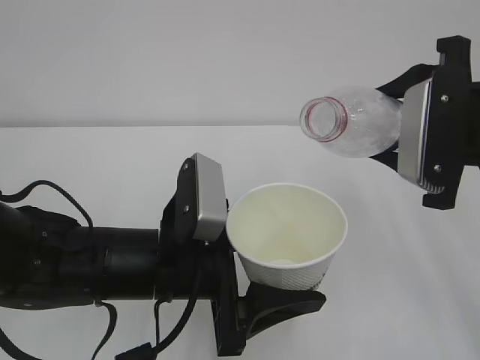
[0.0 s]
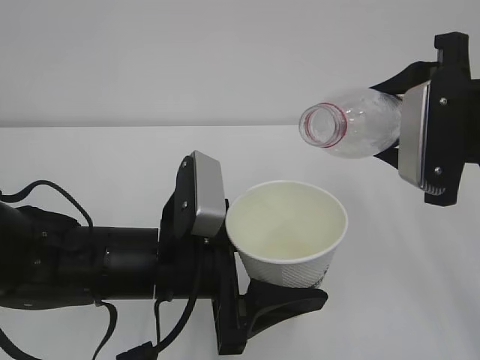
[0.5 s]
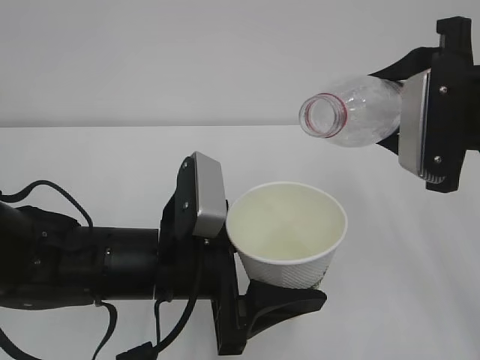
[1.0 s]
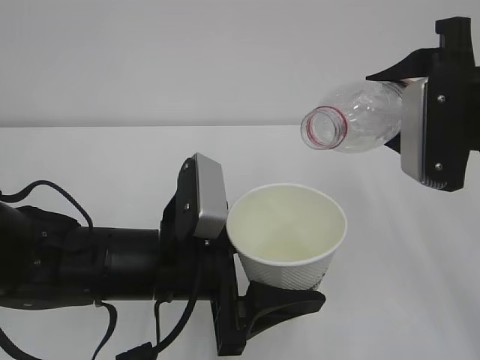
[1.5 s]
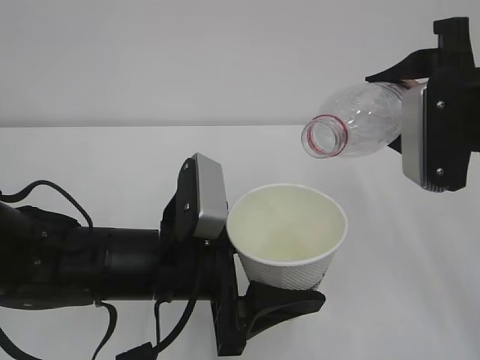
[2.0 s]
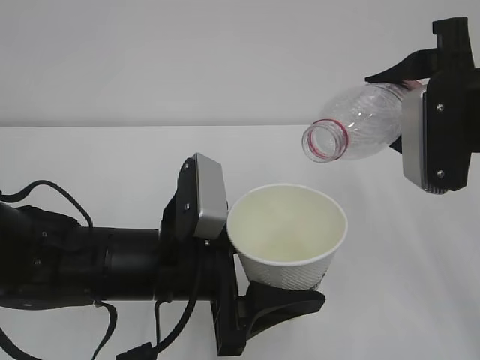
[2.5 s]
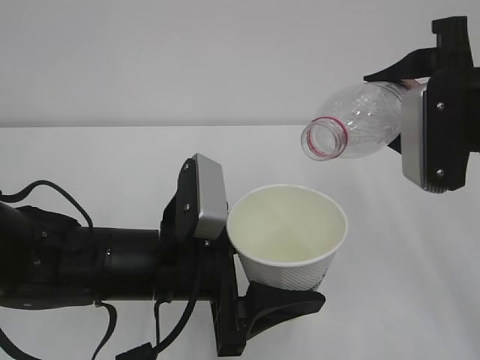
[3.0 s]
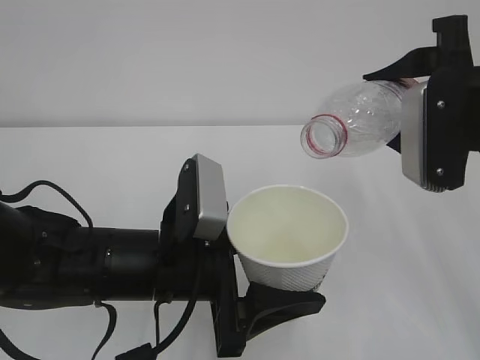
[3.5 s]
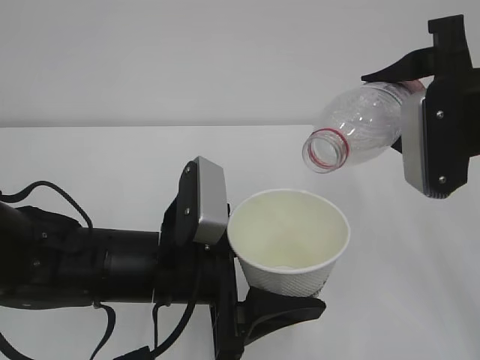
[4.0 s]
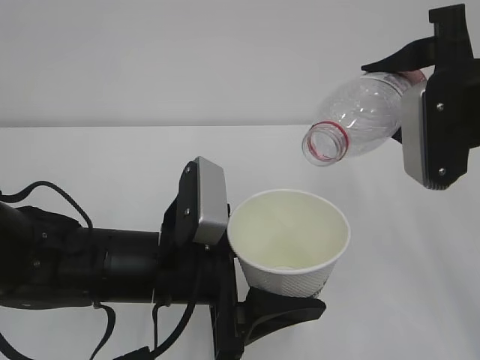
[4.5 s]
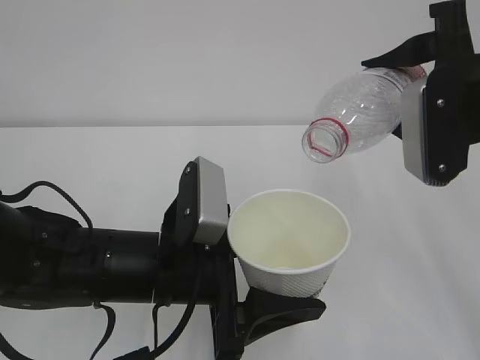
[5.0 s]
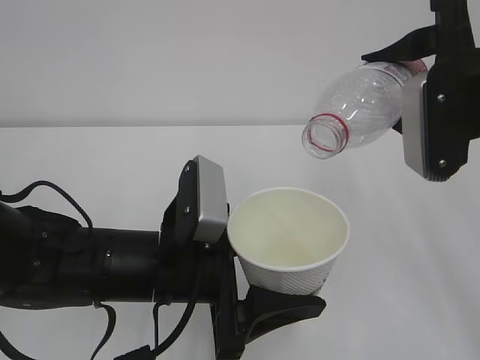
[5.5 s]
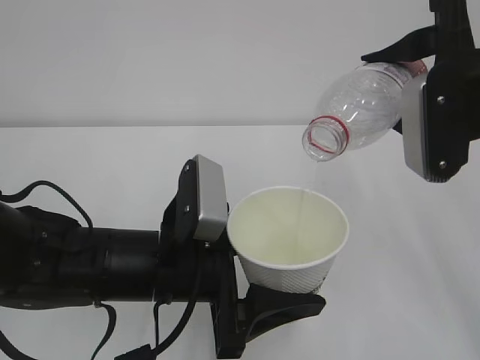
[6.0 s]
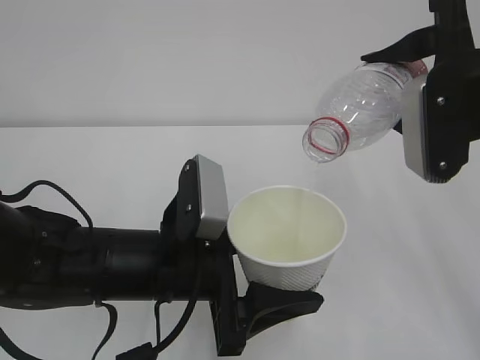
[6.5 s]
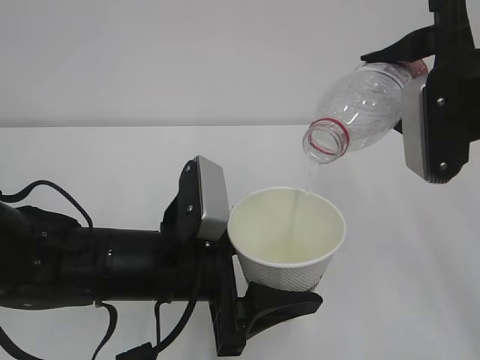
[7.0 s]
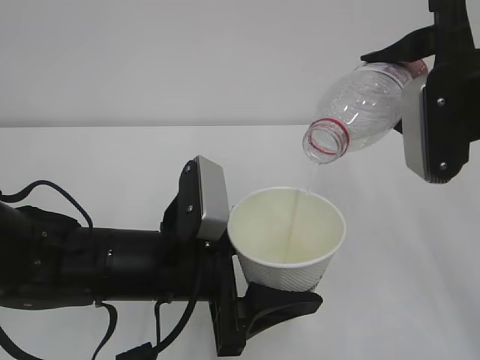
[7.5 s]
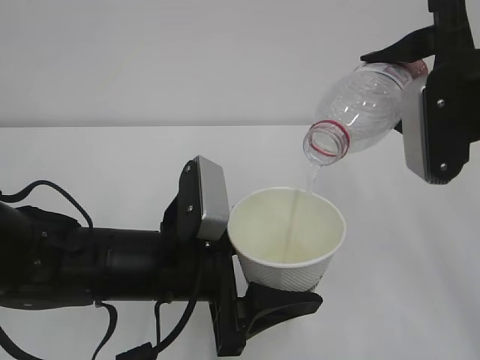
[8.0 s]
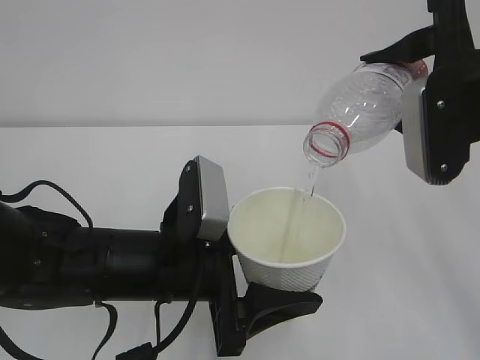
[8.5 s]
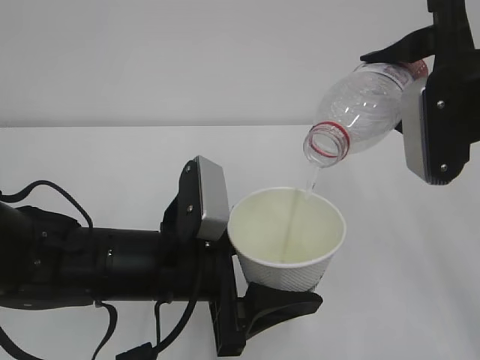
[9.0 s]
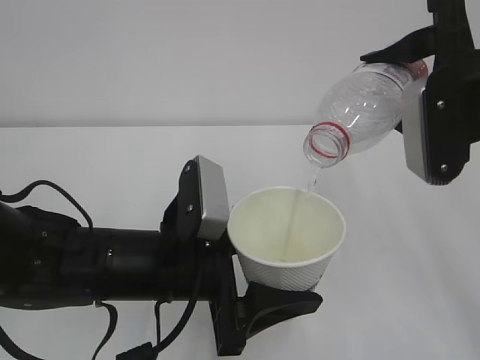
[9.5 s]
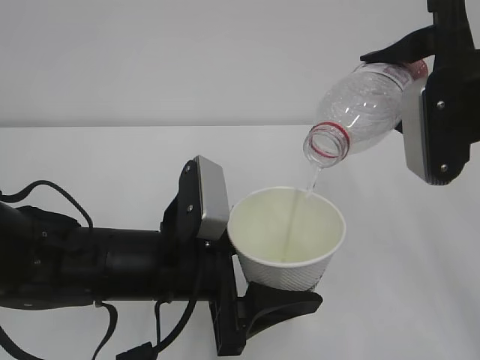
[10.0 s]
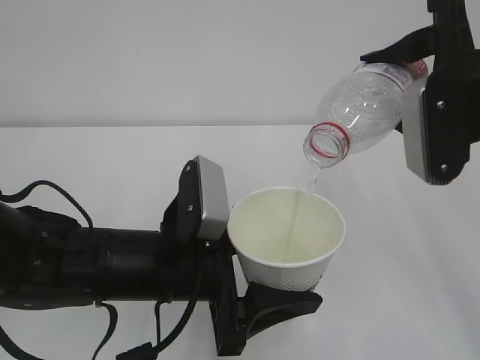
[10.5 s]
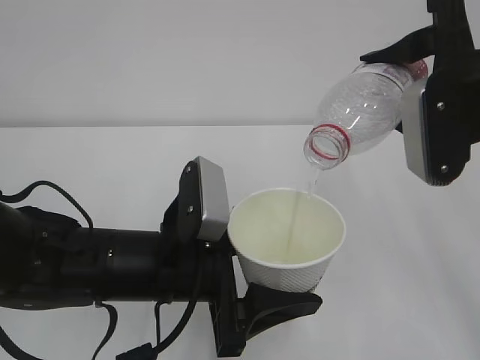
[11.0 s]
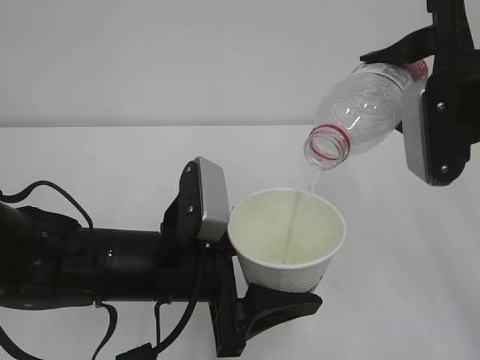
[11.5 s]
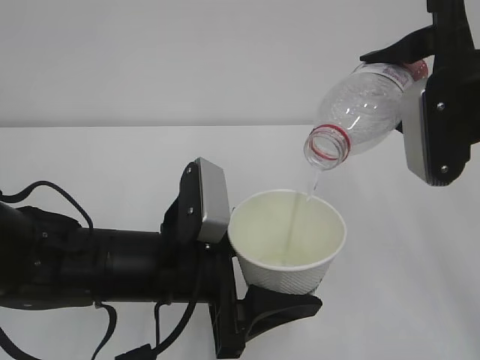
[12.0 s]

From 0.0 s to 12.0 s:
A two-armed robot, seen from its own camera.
From 0.0 s to 4.0 s: The grippers make only small movements.
From 4.0 s to 6.0 s: Both grippers stay about where they are.
From 6.0 s to 12.0 s: Both grippers stay put.

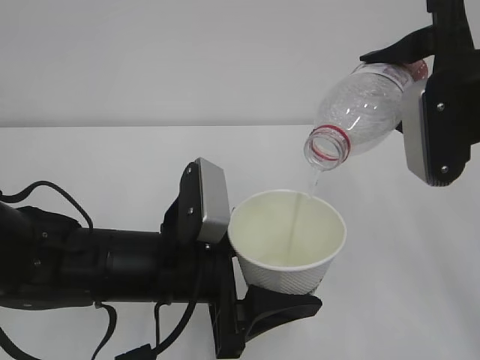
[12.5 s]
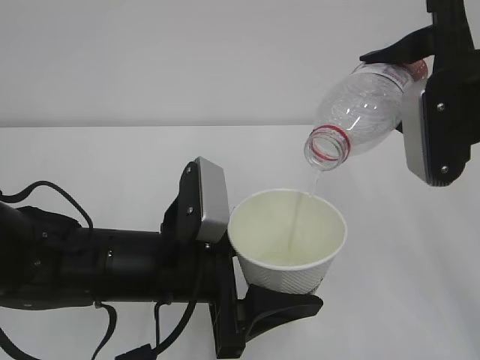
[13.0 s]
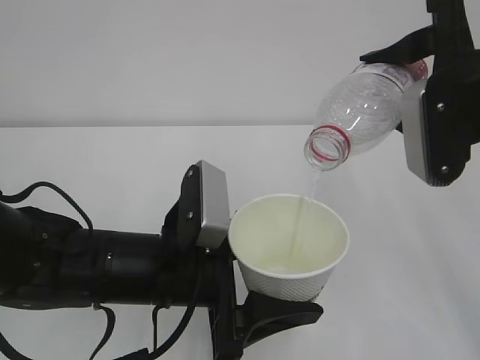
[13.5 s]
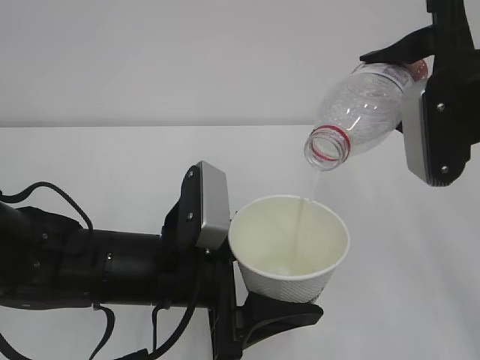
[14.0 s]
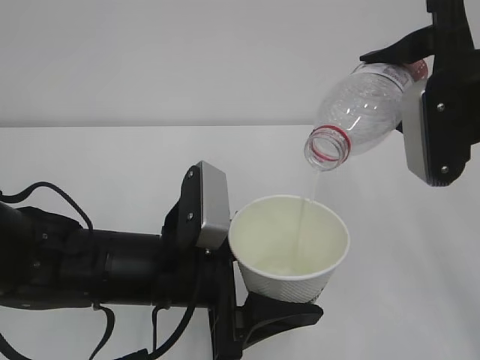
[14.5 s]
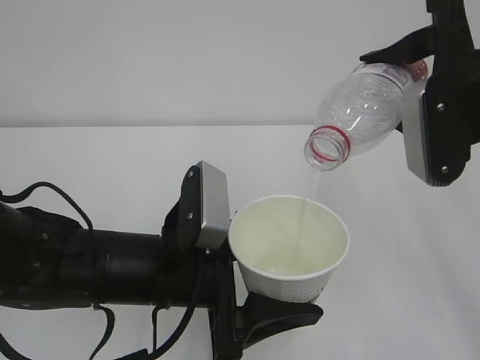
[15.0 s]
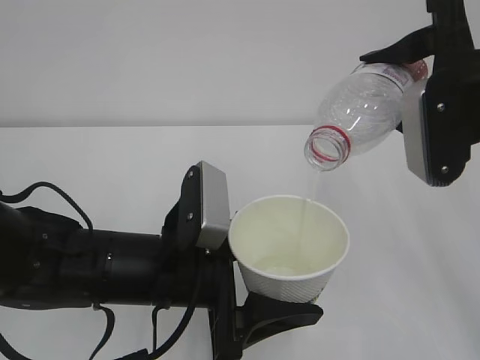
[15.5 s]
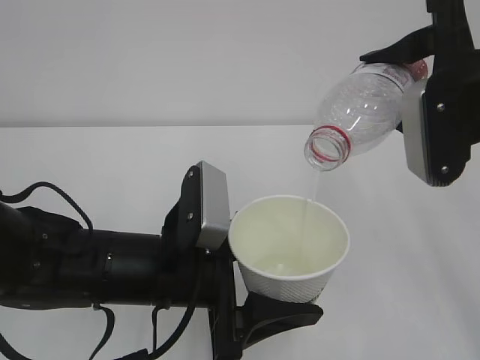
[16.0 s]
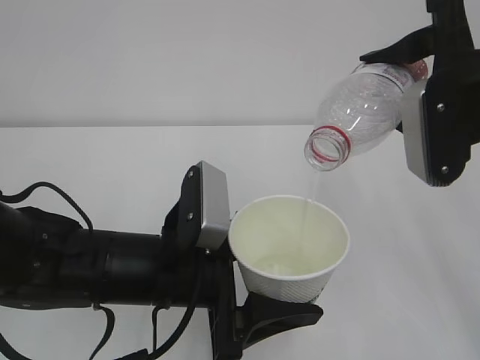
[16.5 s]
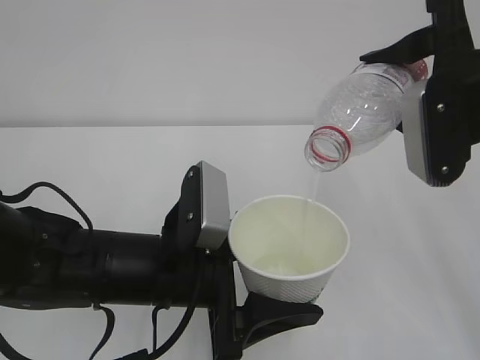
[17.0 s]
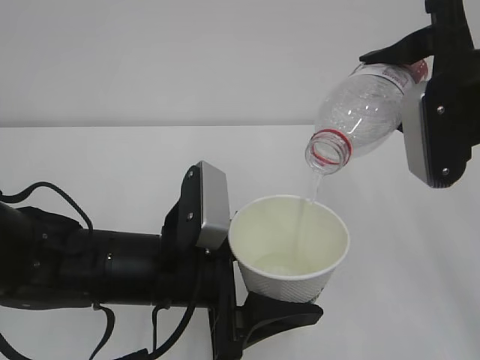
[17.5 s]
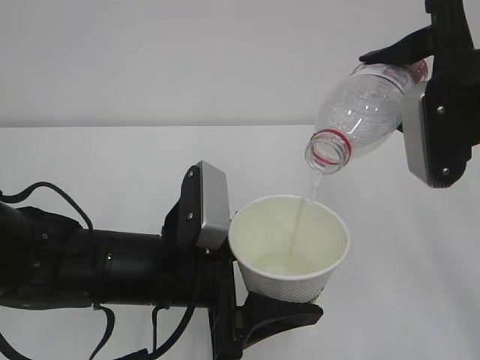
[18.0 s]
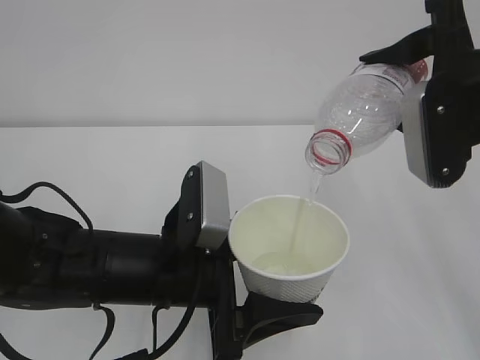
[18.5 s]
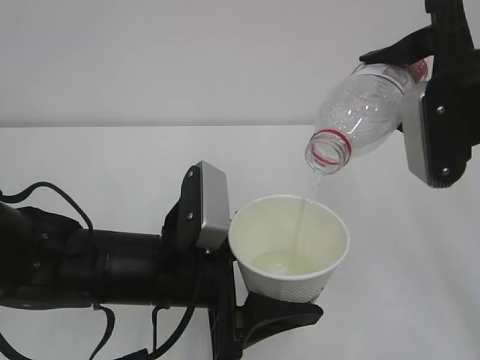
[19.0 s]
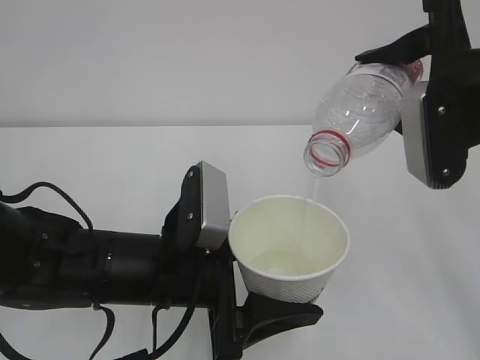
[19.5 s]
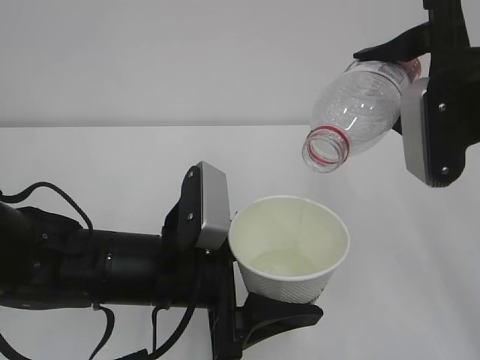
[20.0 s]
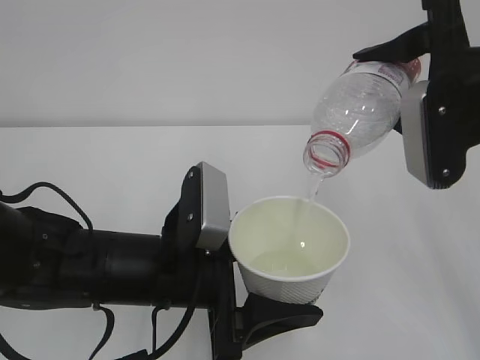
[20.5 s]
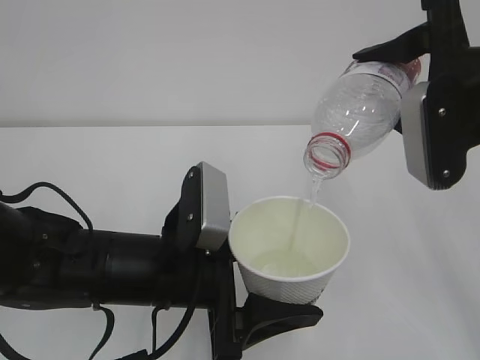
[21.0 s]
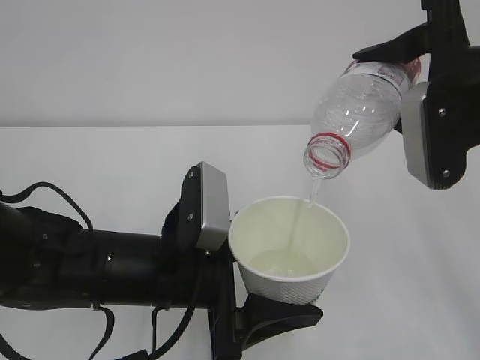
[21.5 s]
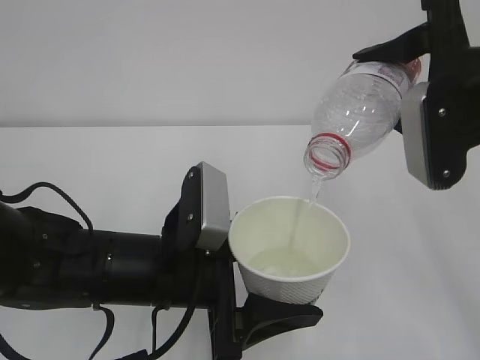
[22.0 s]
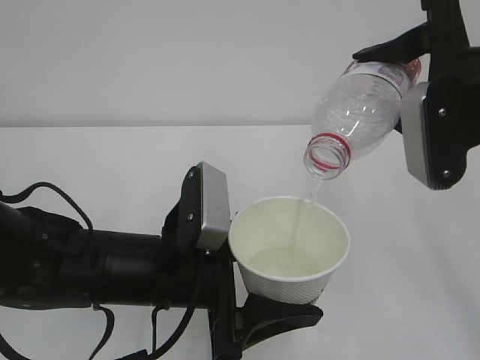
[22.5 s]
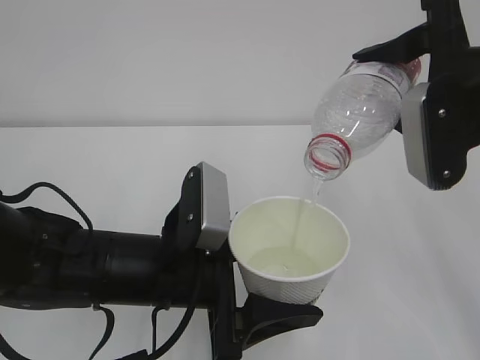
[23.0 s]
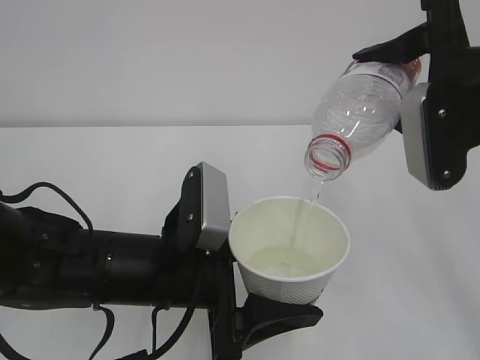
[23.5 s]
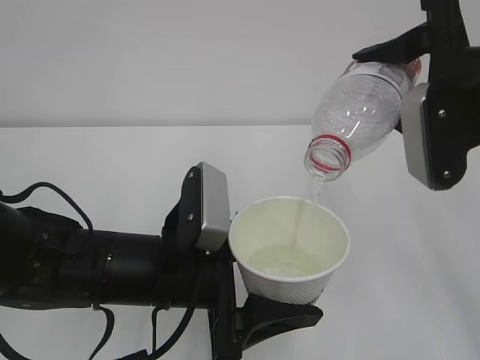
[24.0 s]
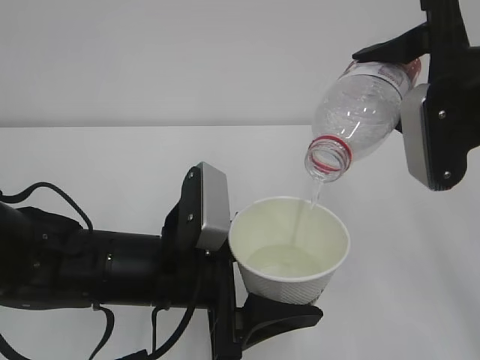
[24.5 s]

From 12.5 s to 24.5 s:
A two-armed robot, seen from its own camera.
From 12.5 s to 24.5 s: The two grippers keep their place.

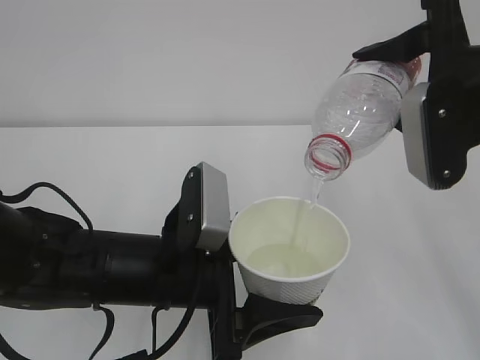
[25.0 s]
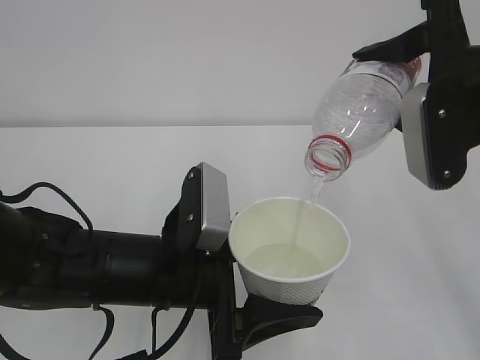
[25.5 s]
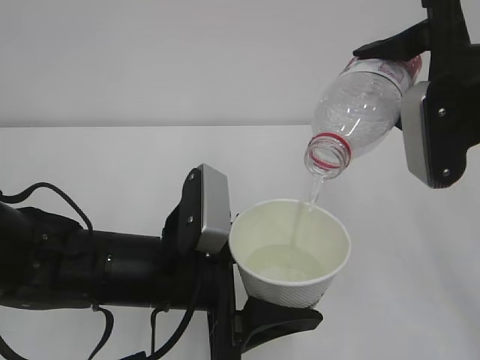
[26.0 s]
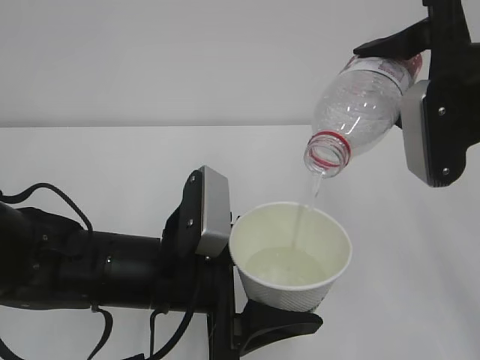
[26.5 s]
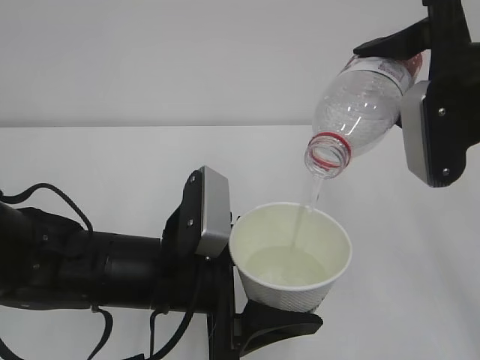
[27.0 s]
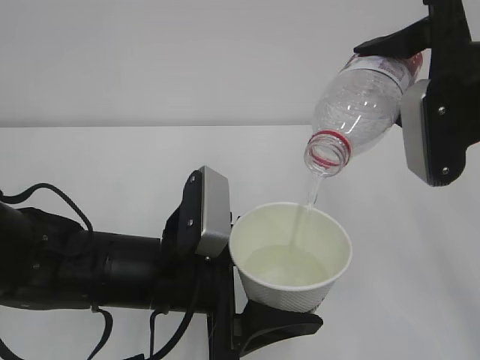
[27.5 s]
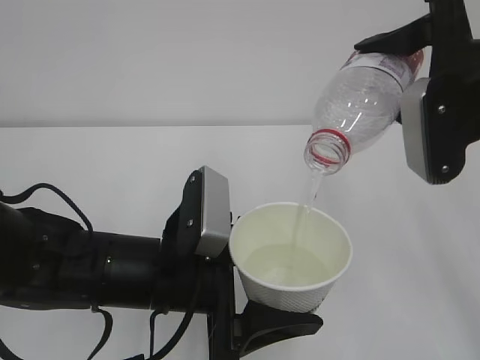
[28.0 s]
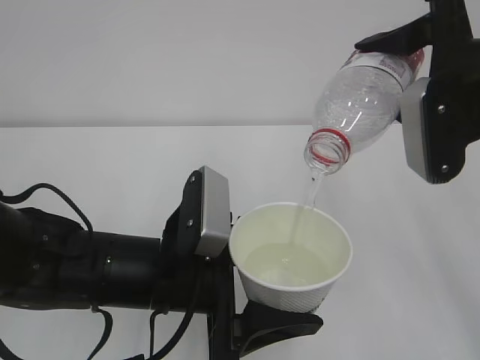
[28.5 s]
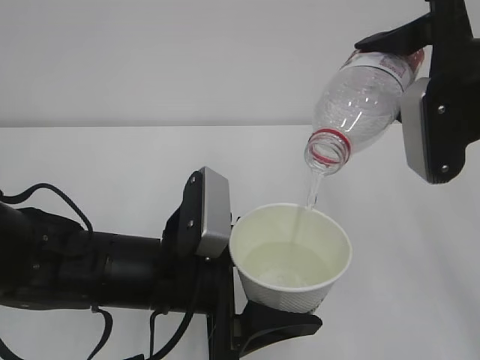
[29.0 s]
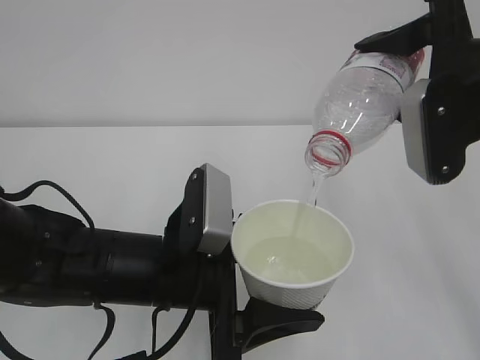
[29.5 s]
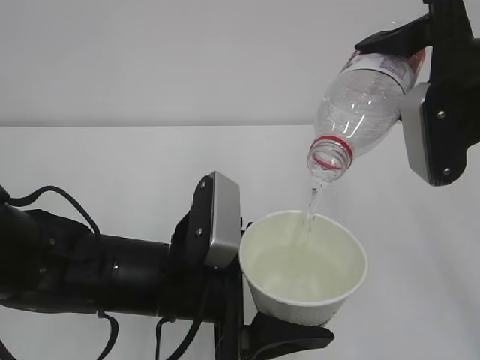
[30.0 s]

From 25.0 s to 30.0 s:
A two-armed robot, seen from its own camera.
From 25.0 s to 30.0 s: Both grippers stay about where they are.
